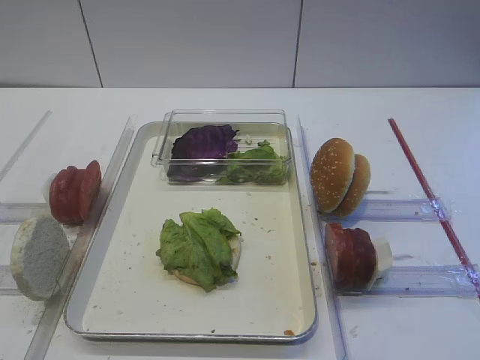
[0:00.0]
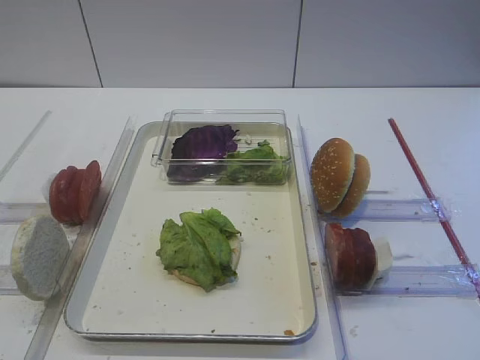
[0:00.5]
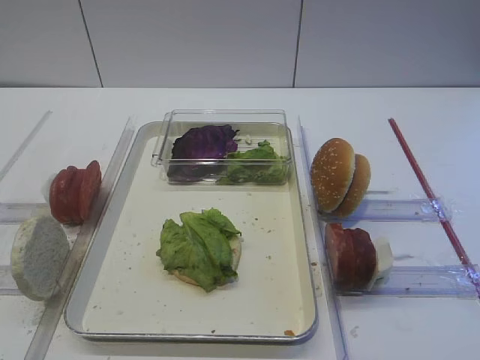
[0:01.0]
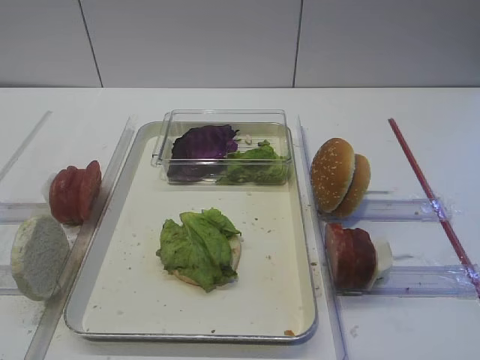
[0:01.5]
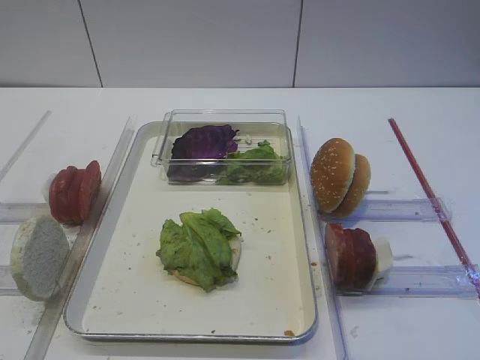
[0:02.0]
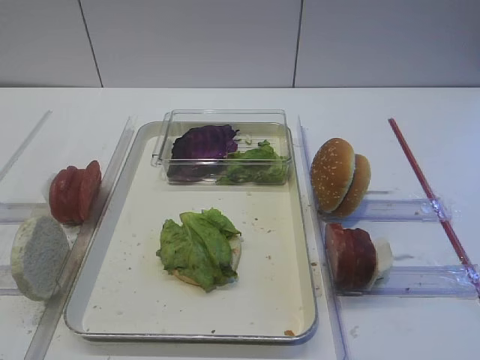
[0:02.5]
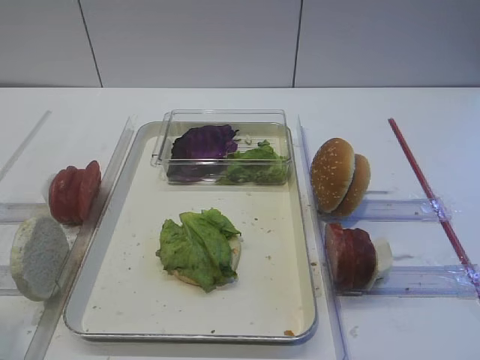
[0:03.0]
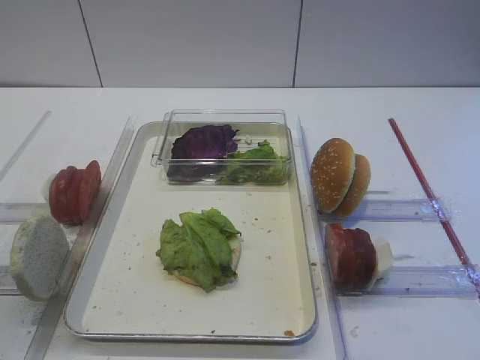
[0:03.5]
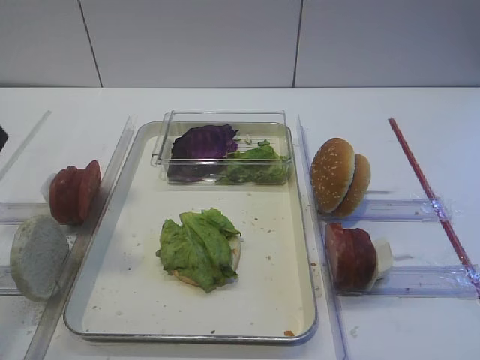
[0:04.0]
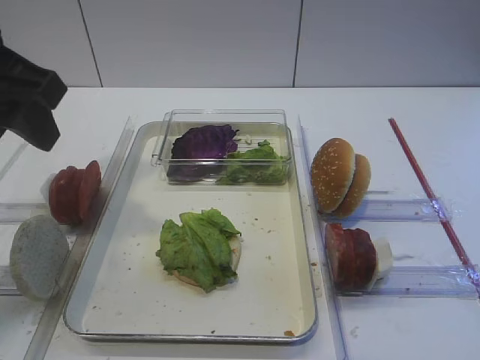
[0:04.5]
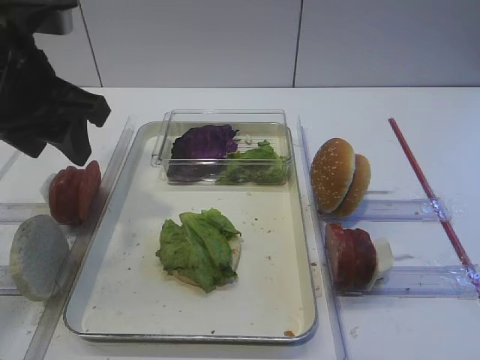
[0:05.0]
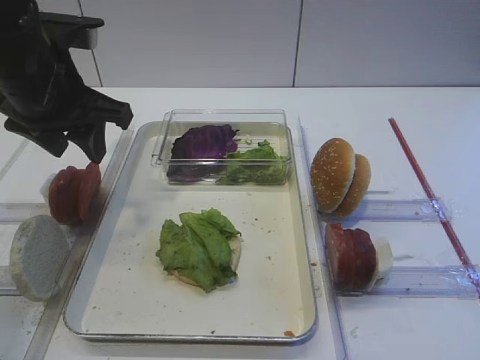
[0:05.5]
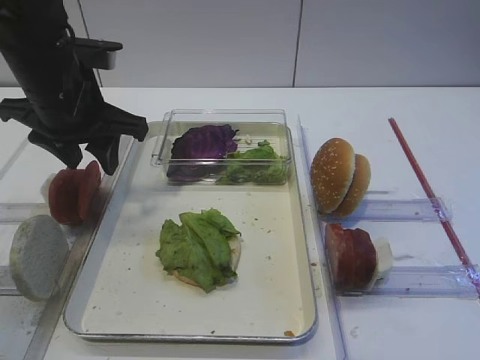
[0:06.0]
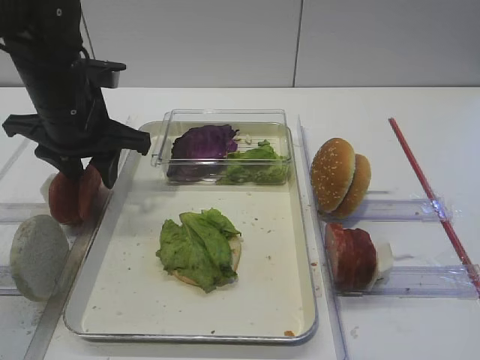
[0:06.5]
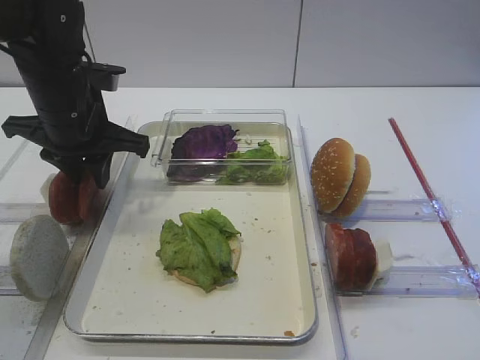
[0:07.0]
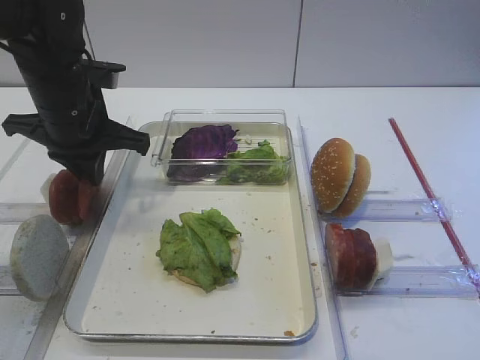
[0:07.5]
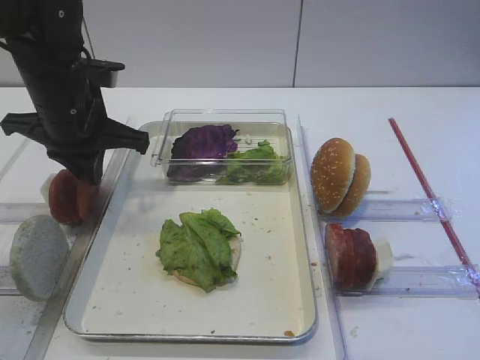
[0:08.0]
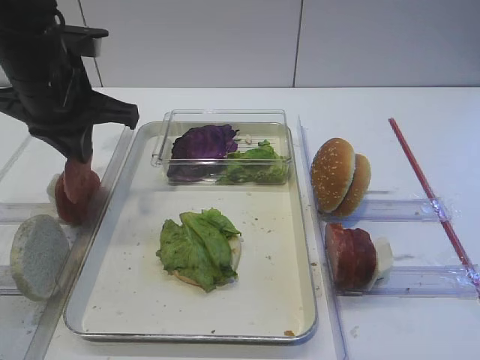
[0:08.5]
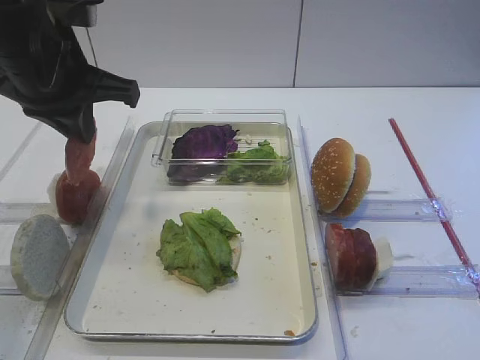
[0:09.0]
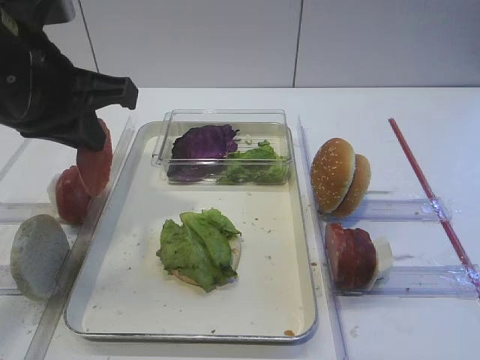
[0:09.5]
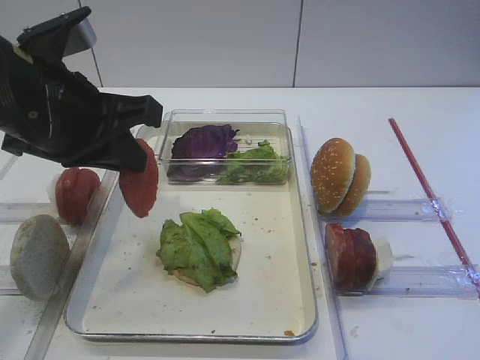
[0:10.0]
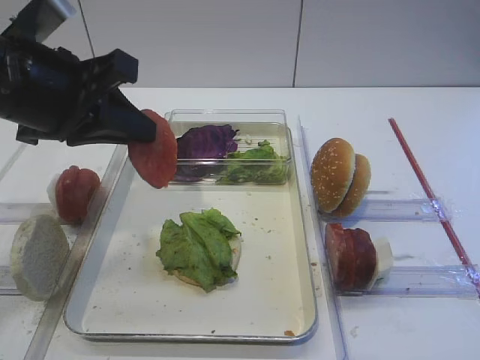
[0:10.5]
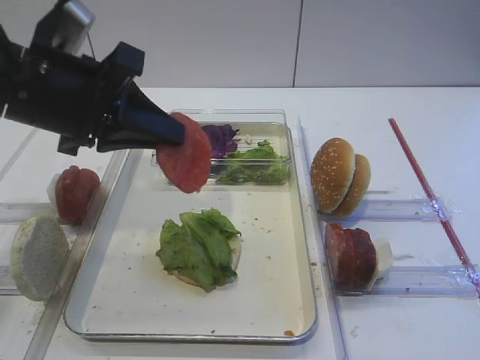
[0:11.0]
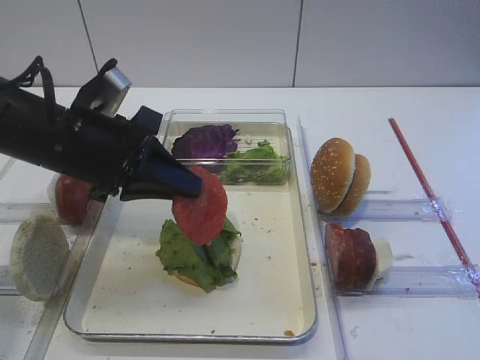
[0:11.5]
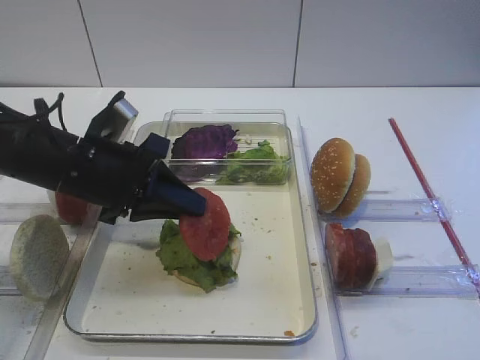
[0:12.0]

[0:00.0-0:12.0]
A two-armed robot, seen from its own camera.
Step, 0:00.0 to 0:08.5: Pick up the tomato slice with the left gripper.
0:02.0 to 0:04.0: The left gripper travels forward and upward by about 20 cm.
0:04.0 to 0:06.0: The left gripper moves forward and downward, about 20 cm.
0:06.0 to 0:08.0: The left gripper closes up.
0:08.0 to 0:10.0: The left gripper goes approximately 10 cm backward and upward.
0:10.0 to 0:12.0: The left gripper is displaced downward by some 10 cm.

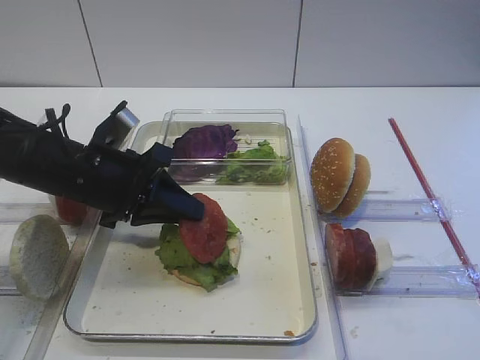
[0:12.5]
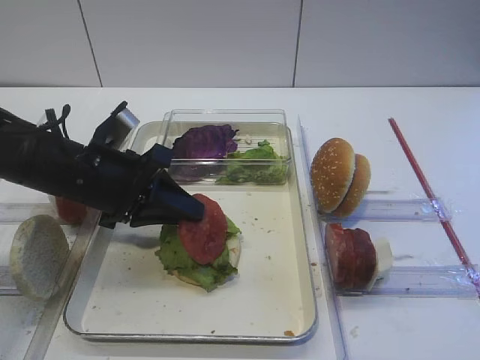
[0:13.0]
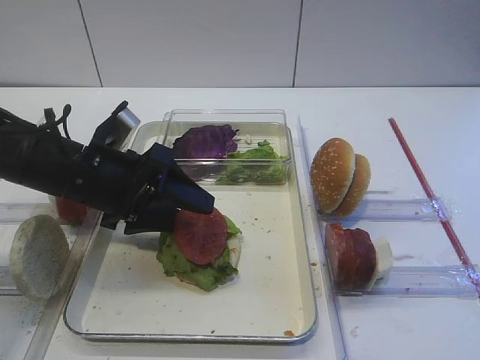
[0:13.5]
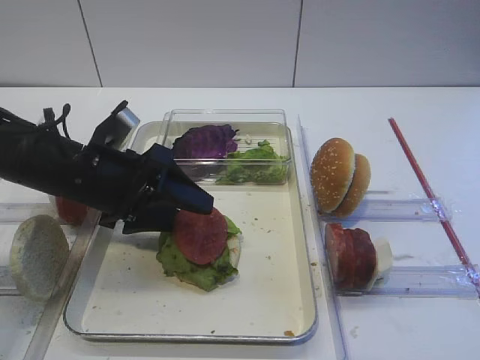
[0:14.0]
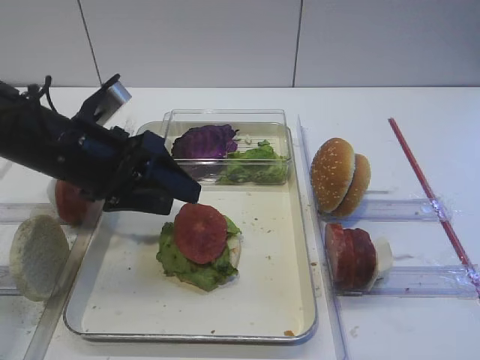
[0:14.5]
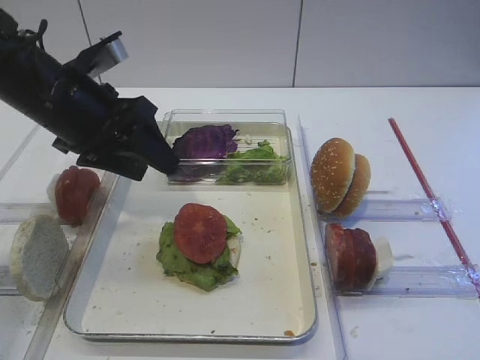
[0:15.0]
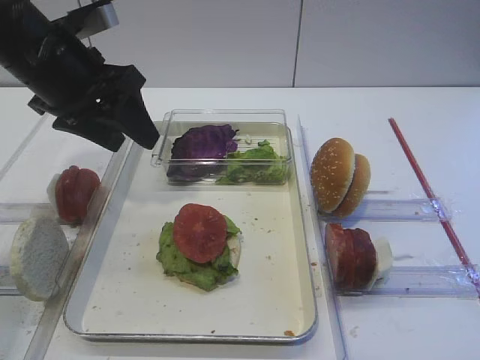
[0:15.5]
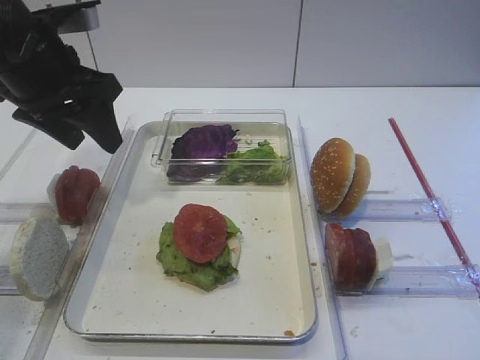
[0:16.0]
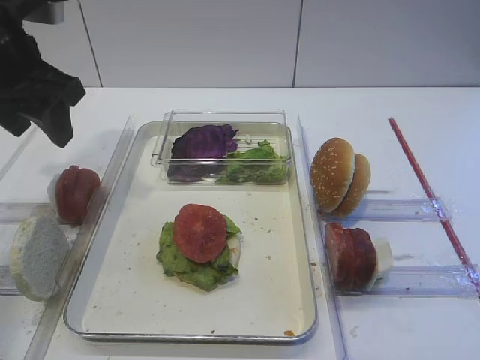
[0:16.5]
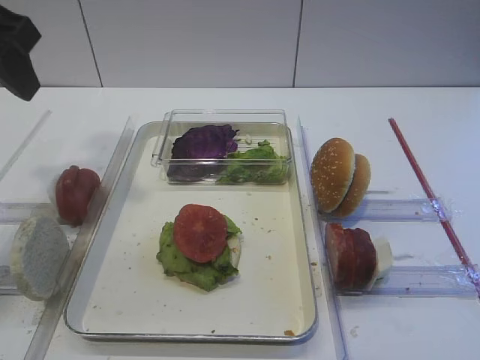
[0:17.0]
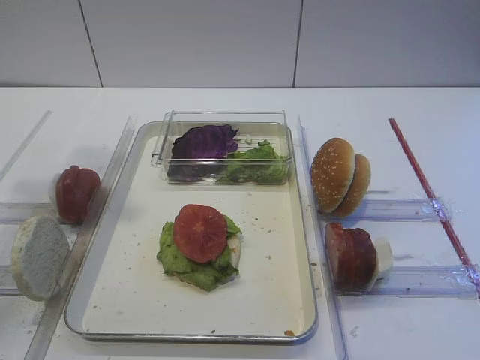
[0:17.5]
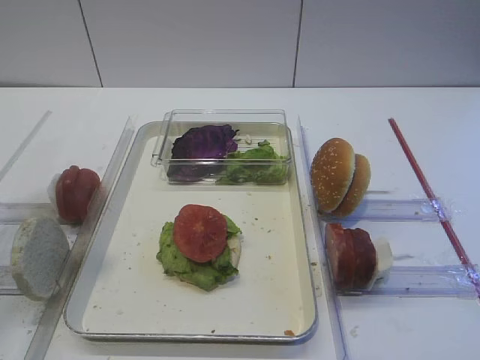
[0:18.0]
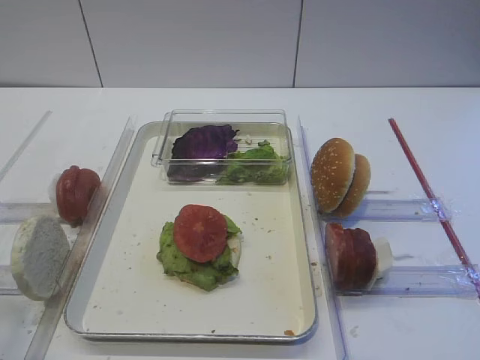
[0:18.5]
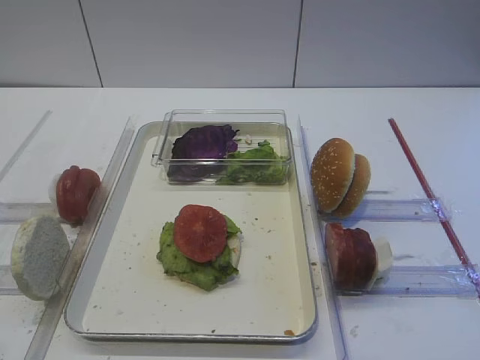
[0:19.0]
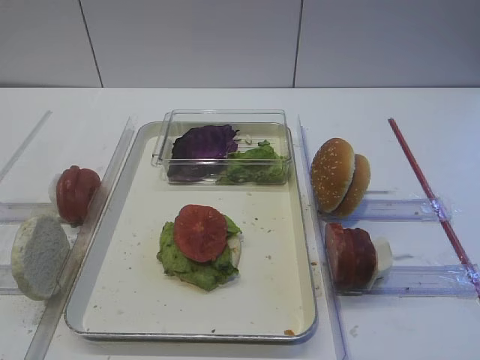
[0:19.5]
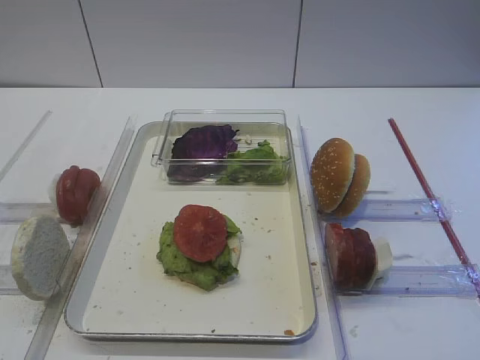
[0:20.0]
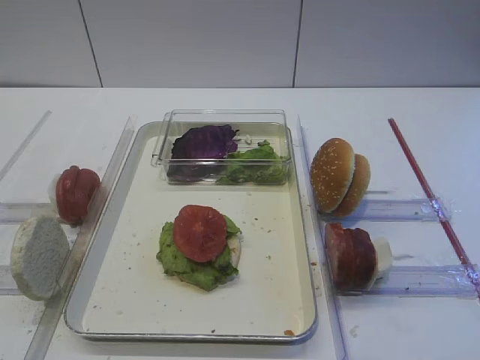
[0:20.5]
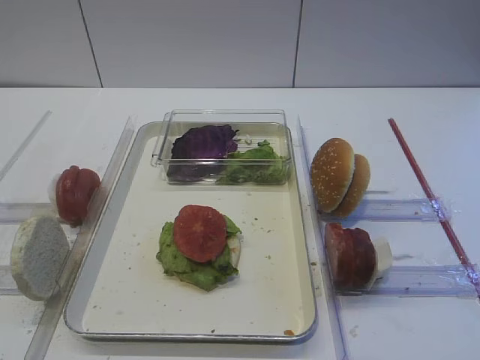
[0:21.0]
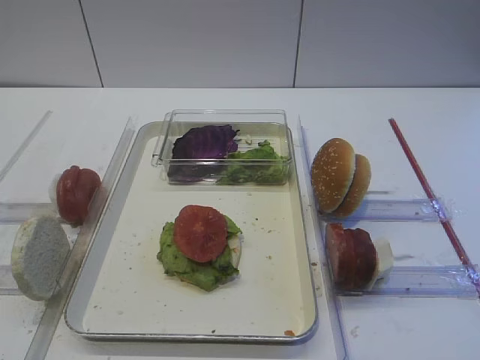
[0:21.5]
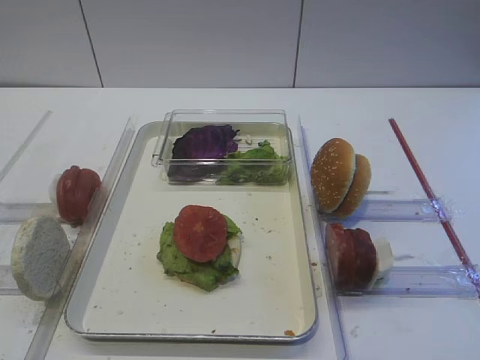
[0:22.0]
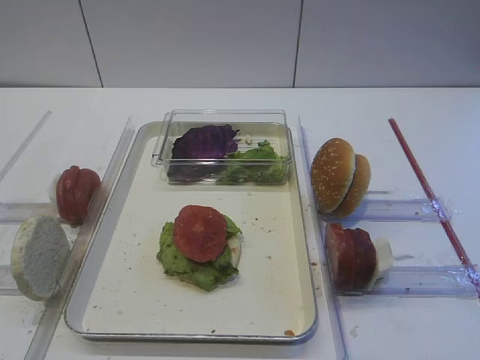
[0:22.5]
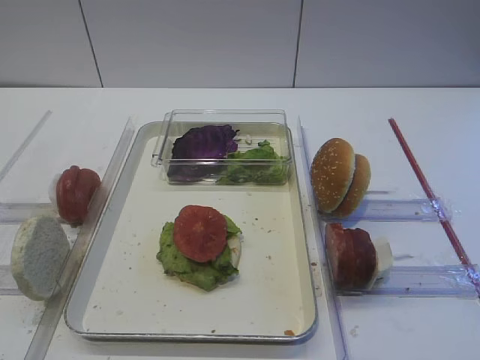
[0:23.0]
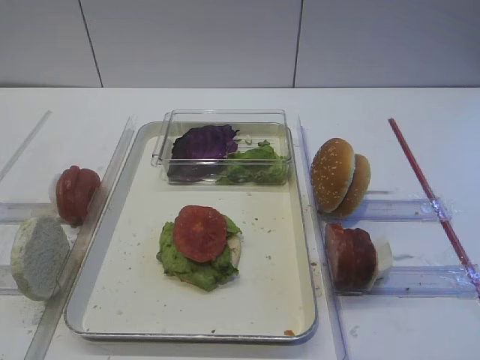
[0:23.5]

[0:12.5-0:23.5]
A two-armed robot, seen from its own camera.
Step, 0:12.5 to 0:14.5: Place the tomato slice on the lettuce leaf with the left gripper.
0:12.5 to 0:14.5: The left gripper opens its fingers.
0:14.5 to 0:16.0: The left gripper moves upward, about 10 cm.
0:16.0 to 0:18.0: The left gripper goes some 25 cm backward and upward.

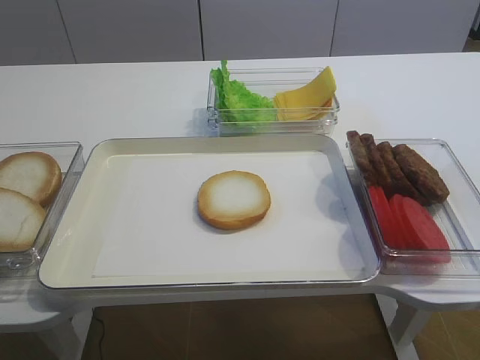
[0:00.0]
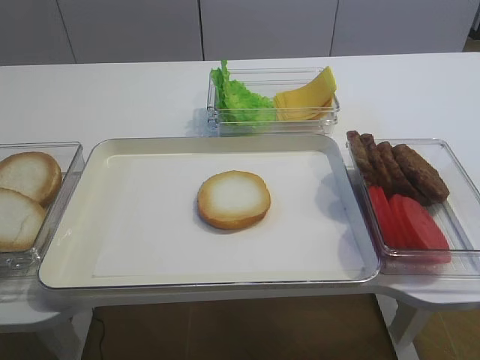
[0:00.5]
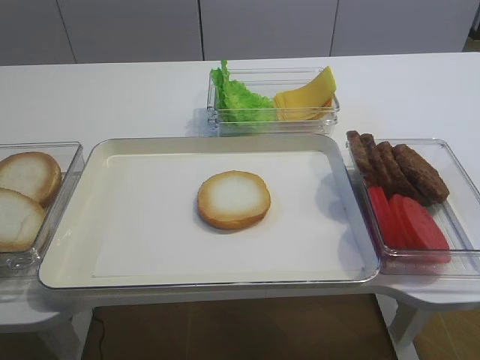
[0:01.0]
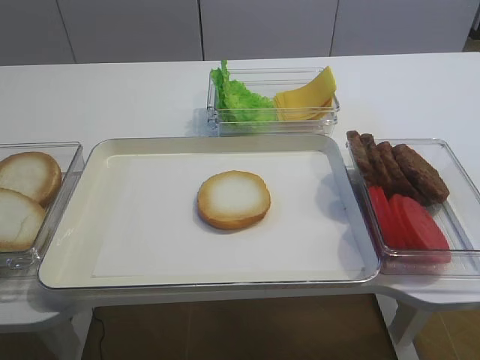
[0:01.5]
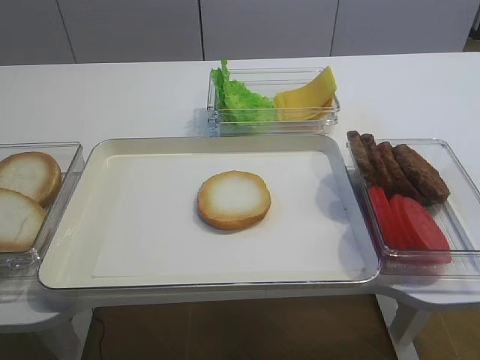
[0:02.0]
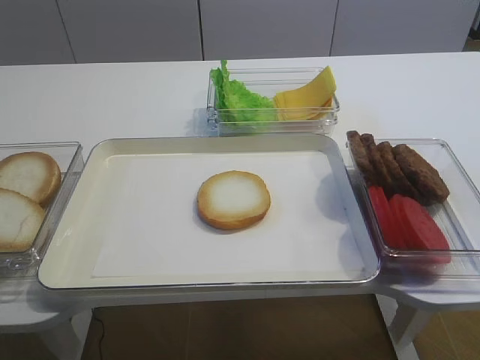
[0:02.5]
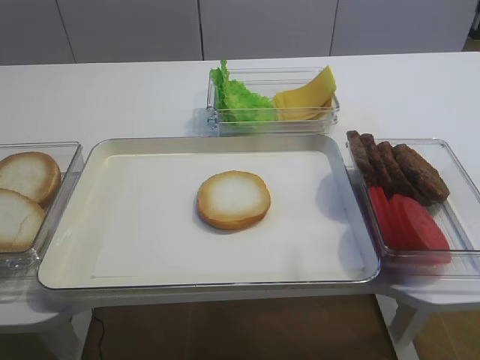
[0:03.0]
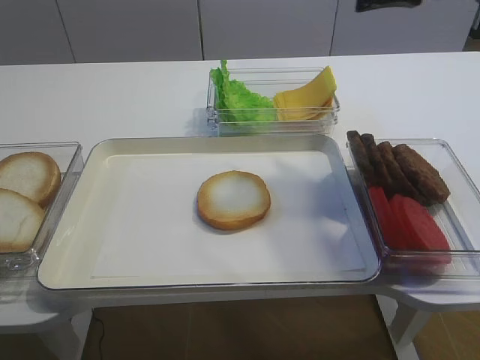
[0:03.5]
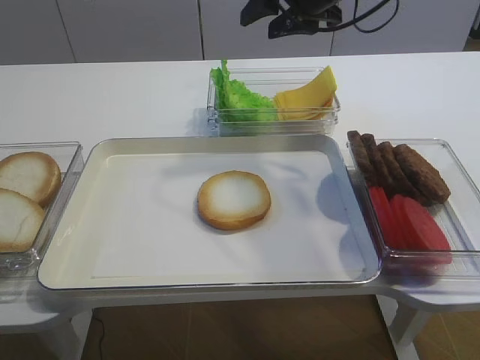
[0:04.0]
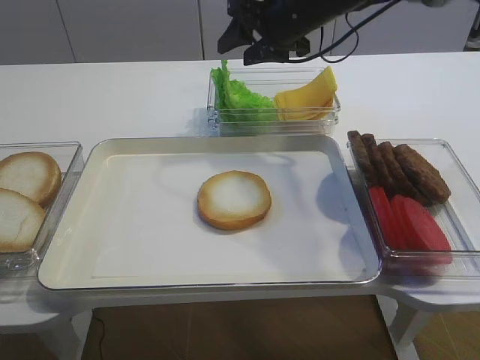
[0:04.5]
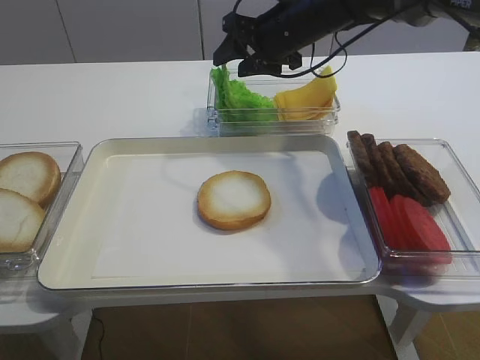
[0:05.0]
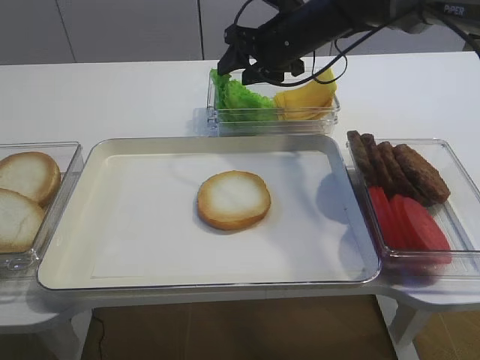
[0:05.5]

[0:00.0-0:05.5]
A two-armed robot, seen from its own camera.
0:02.0 to 0:03.5: The right gripper is displaced forward by about 35 cm.
0:03.5 to 0:05.5: The right gripper moves downward, to the left and forward, roughly 20 cm.
